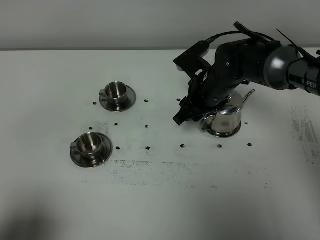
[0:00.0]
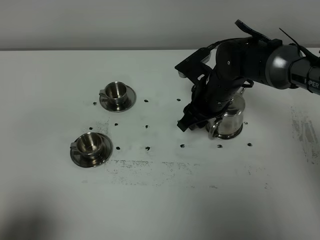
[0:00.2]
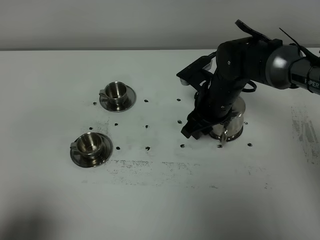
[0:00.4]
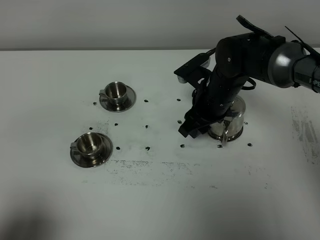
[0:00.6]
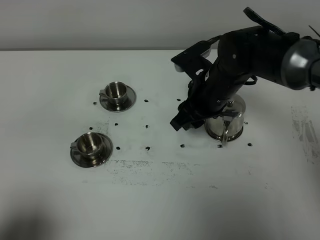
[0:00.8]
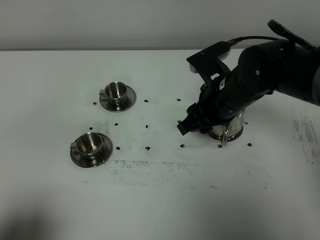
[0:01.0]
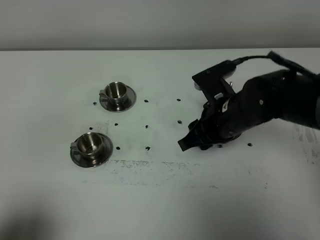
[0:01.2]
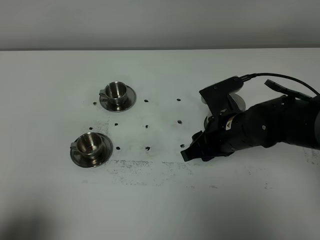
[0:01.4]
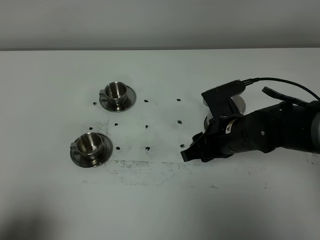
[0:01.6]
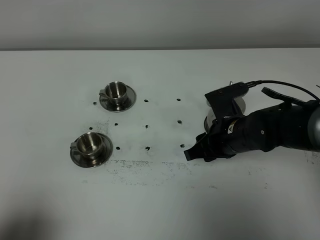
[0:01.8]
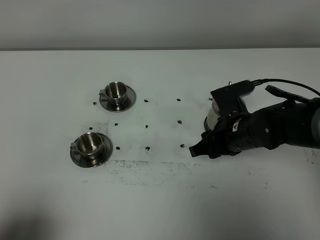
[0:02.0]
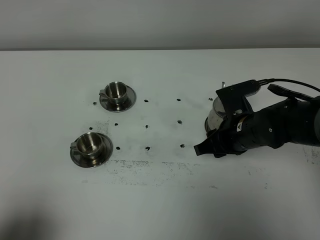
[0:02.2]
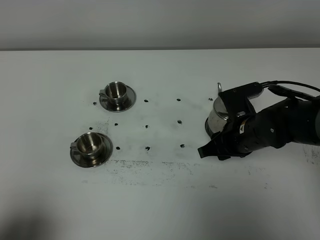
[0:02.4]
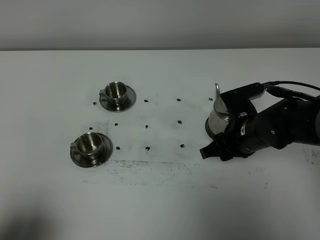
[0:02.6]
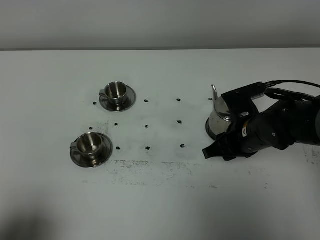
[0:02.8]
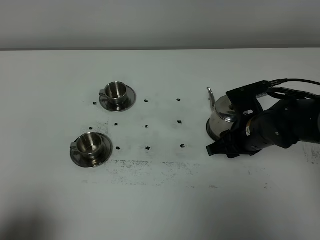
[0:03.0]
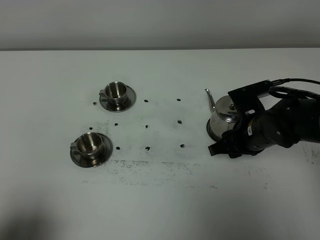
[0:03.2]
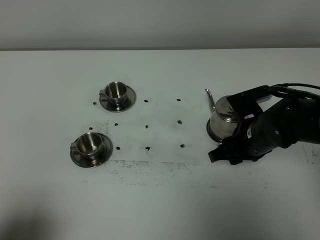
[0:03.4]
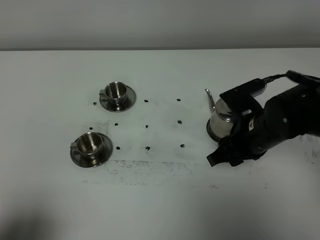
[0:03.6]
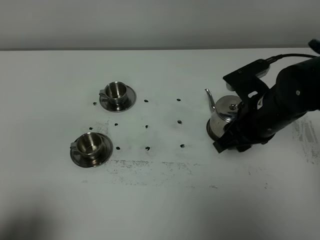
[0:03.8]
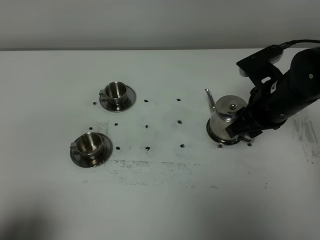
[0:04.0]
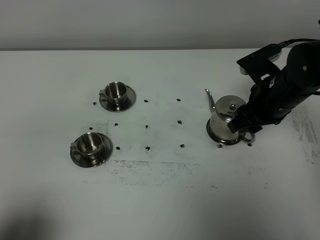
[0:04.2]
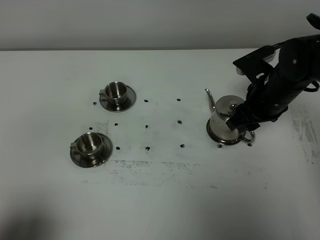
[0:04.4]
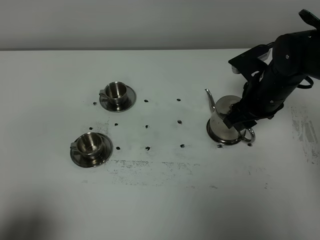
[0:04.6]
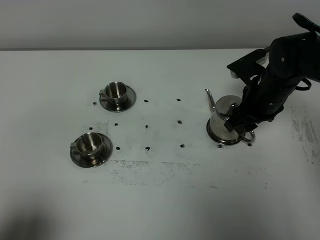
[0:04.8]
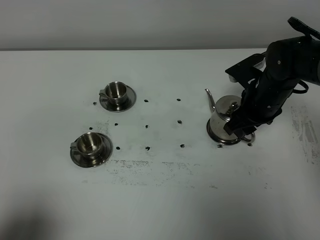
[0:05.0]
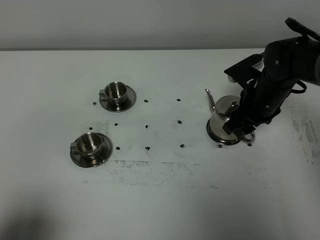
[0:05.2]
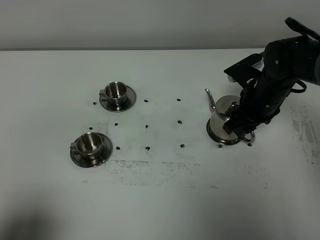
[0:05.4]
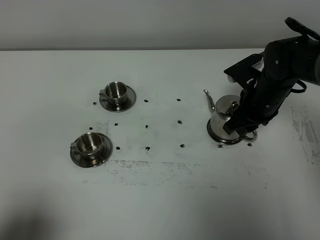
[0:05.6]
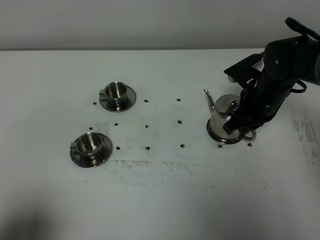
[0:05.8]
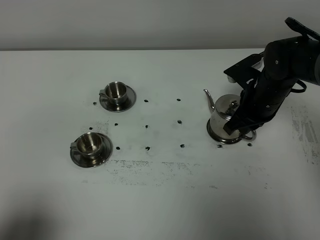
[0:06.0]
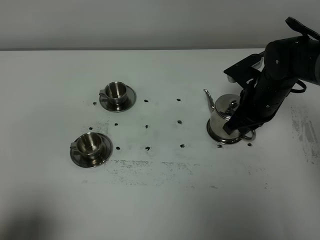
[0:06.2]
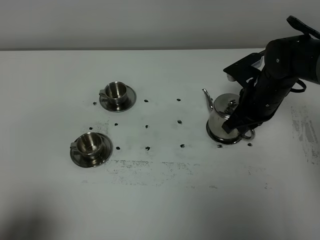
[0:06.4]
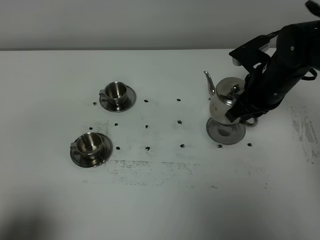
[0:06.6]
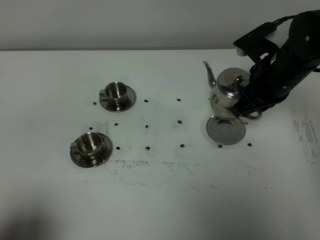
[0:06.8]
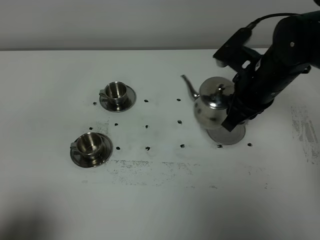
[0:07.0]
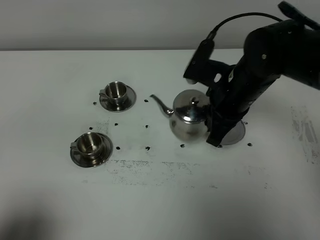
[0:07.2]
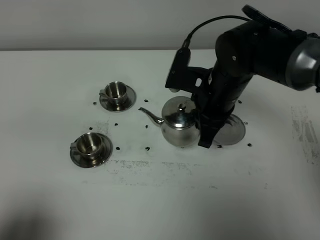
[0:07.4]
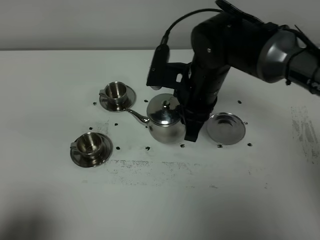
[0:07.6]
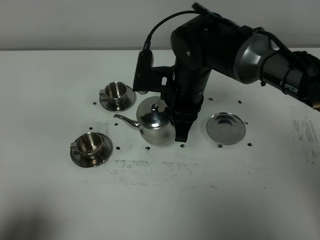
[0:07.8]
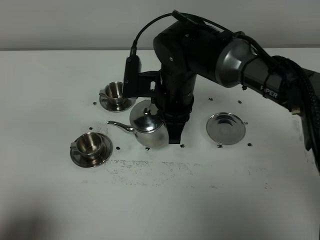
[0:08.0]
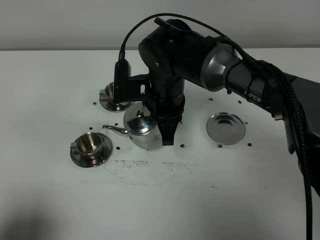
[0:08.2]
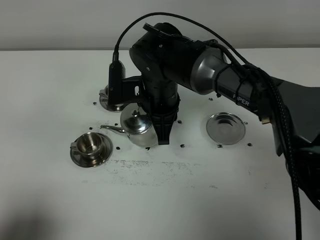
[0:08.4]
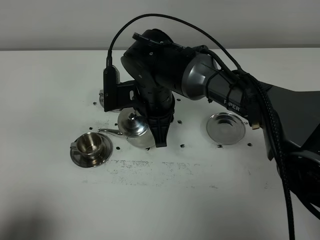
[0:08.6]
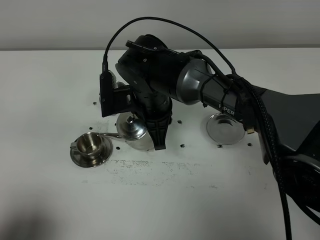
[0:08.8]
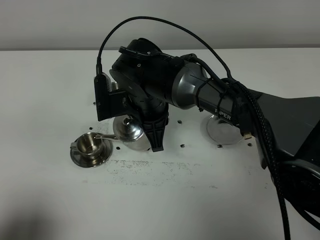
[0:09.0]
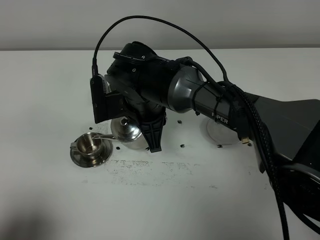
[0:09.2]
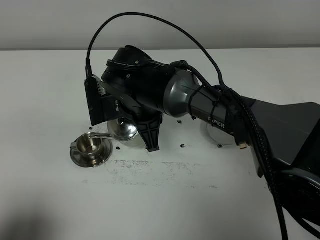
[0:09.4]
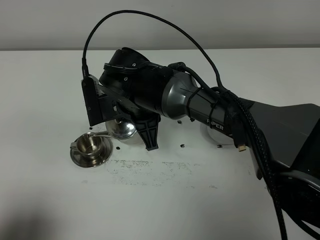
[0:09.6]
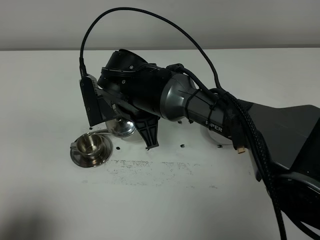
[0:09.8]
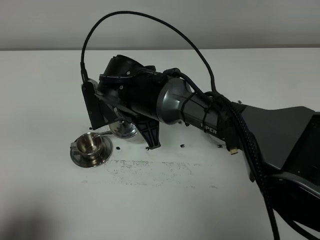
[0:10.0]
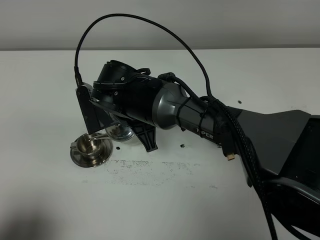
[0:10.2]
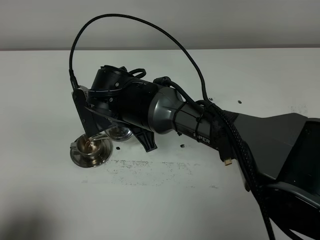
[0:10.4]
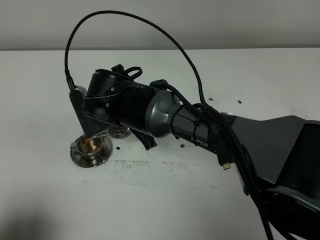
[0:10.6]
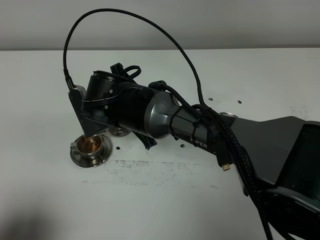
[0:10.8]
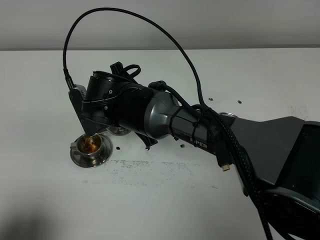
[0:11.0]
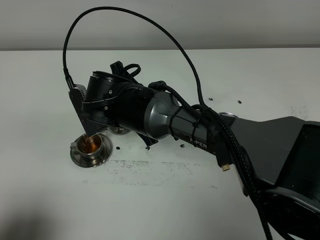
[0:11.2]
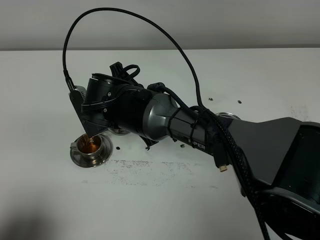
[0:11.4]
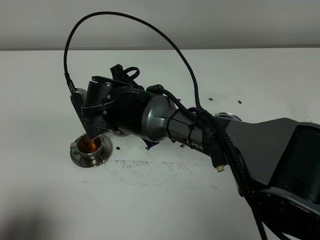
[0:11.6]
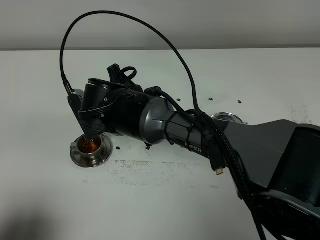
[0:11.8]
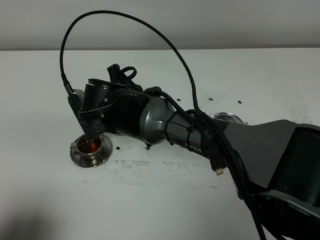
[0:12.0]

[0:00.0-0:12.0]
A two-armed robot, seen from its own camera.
Task of the whole recording: grasp the stainless steel teapot and pour the tea into the two stainless steel teacups one by one, put the stainless steel teapot back in its original place.
Step, 0:00.0 to 0:06.4: Pick up the teapot with the right gripper.
0:00.0 to 0:01.6: The right gripper is displaced backward by some 10 cm.
0:01.6 to 0:03.0: The grippers stay close to where they were, moving slightly.
0:03.0 to 0:04.4: The right gripper heads upward, covering roughly 5 cm.
0:04.4 to 0:06.0: The right gripper closes.
0:06.0 to 0:07.6: The right gripper shifts roughly 15 cm to the left and upward.
0:07.6 to 0:09.0: The right gripper moves to the left, about 10 cm.
0:10.4 to 0:12.0: The grippers stay close to where they were, moving slightly.

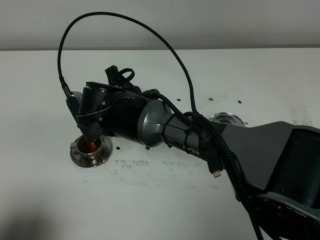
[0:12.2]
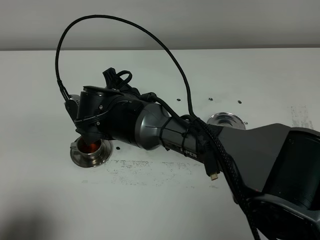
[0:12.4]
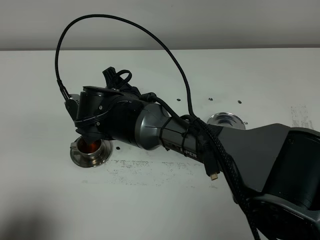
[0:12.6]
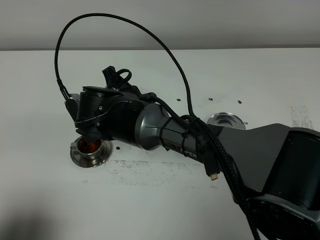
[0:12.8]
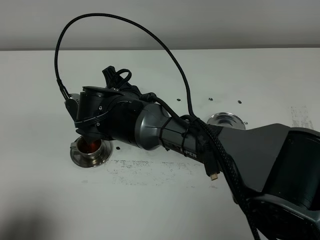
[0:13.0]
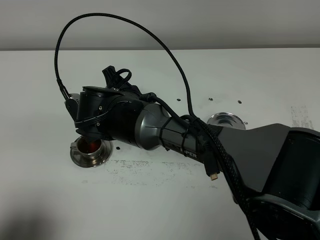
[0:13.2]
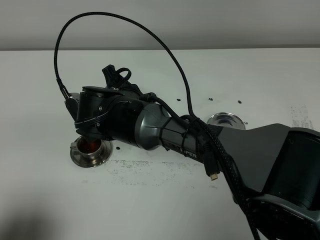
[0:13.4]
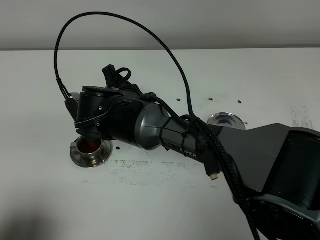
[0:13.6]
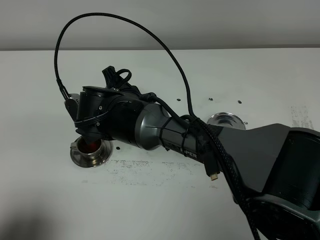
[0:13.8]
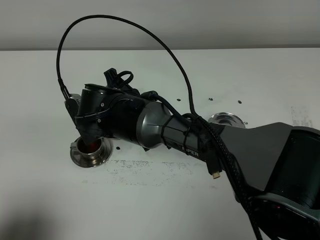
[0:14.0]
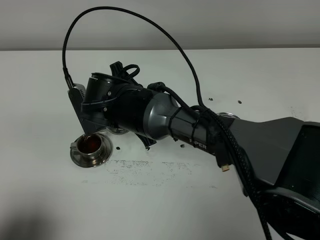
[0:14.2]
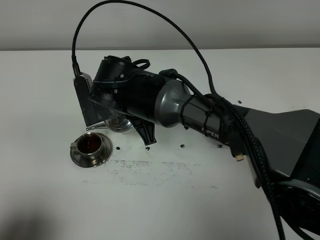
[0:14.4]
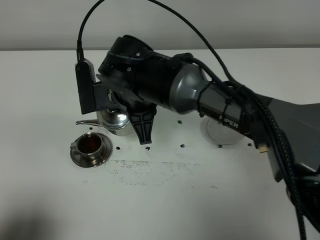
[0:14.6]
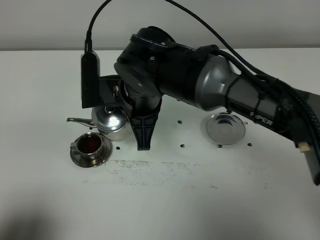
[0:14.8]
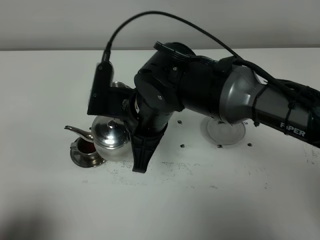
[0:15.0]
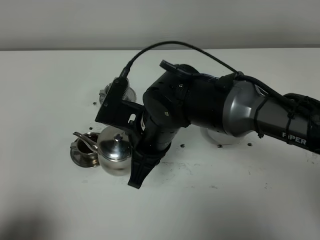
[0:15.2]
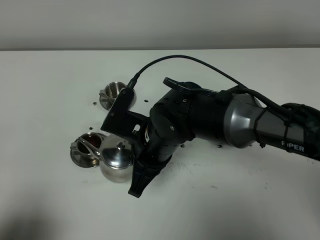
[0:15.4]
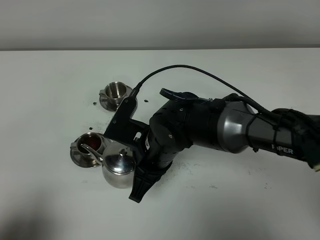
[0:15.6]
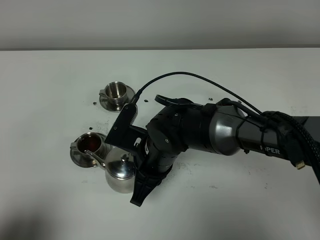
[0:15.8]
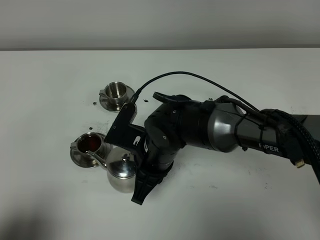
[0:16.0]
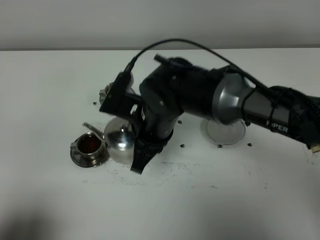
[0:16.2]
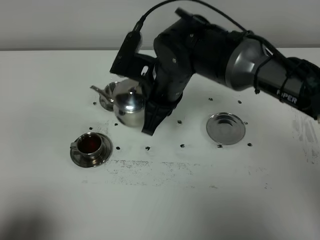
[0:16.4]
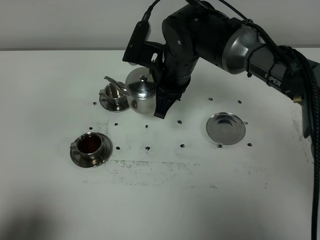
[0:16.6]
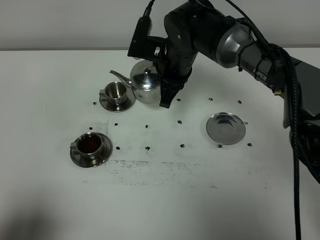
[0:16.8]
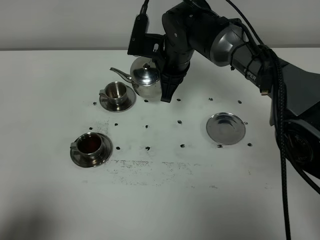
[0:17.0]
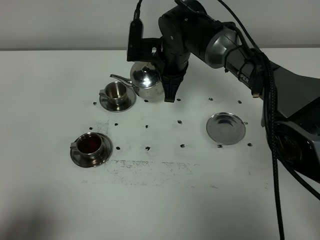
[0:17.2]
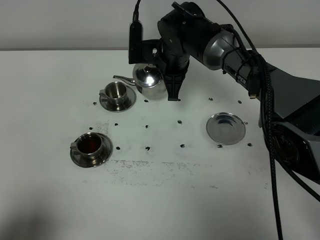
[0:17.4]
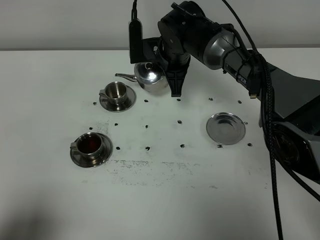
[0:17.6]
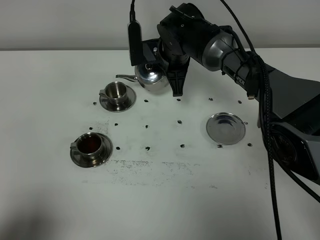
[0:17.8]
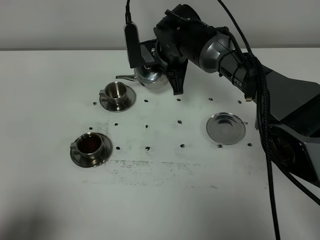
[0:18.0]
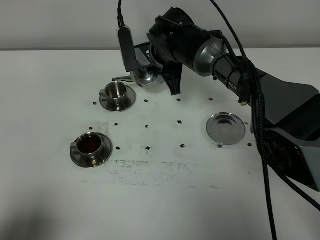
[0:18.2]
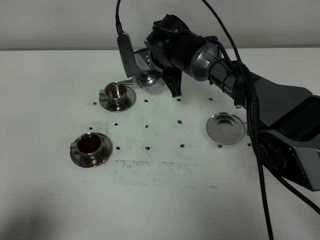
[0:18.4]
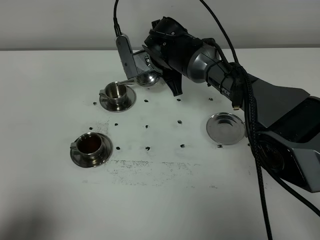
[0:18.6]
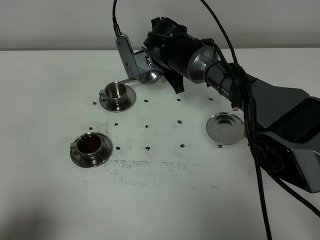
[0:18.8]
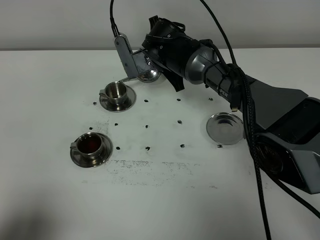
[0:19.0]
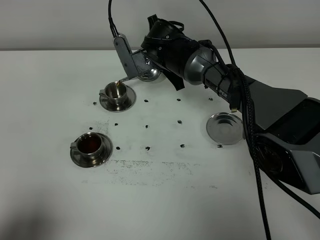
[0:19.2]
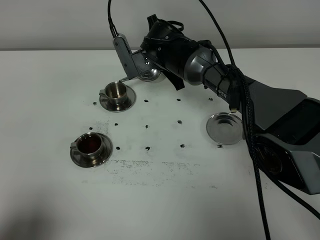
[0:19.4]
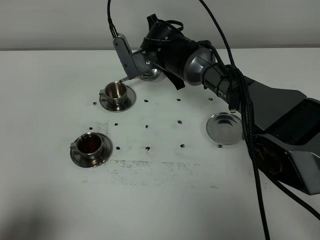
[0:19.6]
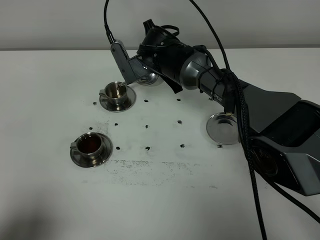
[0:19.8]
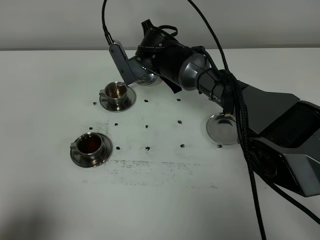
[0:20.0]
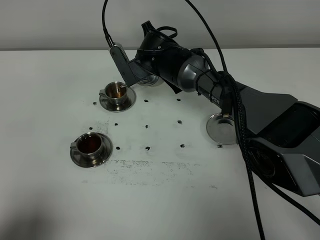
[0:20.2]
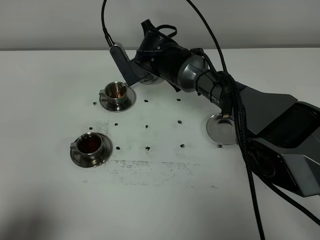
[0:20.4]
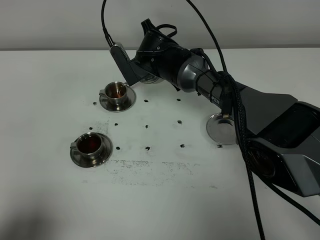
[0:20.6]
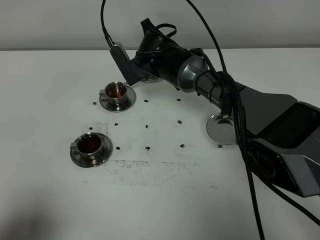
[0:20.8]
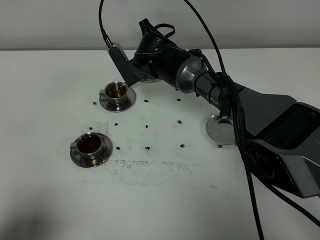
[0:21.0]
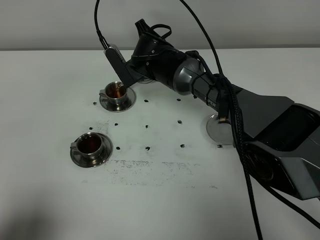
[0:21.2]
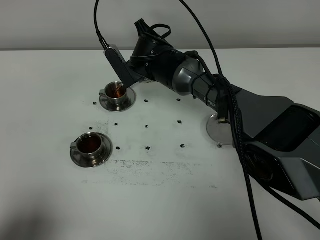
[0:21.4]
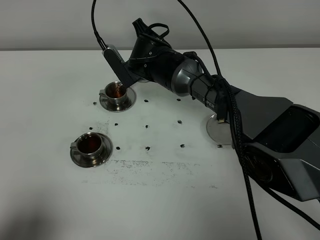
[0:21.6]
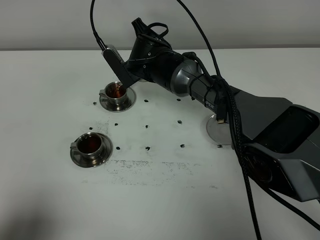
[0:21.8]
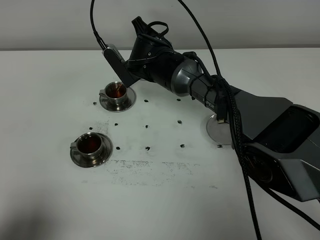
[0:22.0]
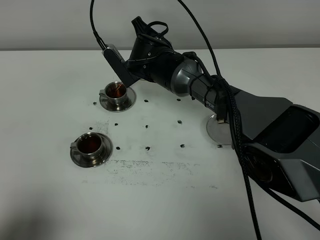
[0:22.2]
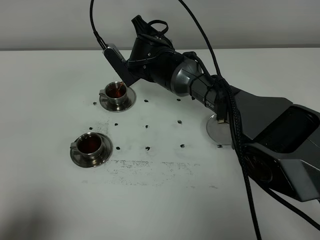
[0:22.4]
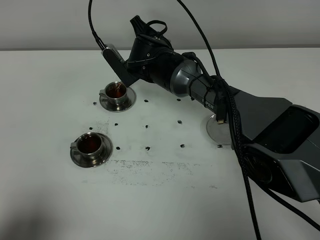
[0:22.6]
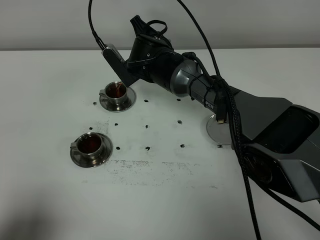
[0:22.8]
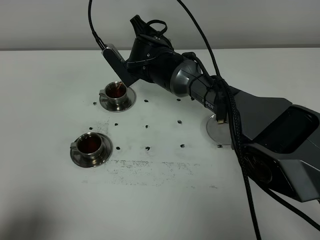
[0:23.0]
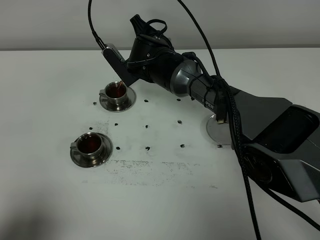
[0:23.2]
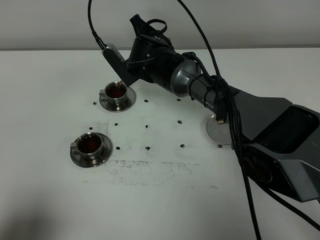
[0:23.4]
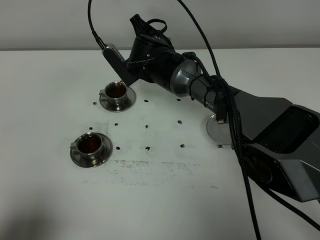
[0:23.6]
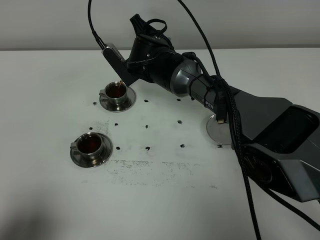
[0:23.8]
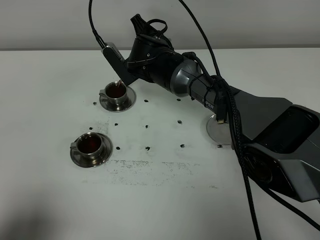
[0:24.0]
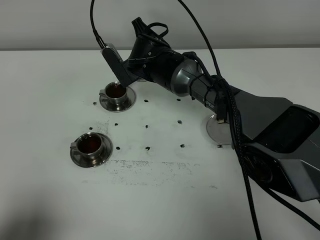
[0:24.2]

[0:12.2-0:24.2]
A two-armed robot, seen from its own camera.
Task of the whole recording: grasp the stainless steel teapot and pour the tea into the two stainless steel teacups one by one, put the stainless steel teapot back in its original place.
0:12.2 to 0:13.8: Neither gripper changes place.
0:13.8 to 0:15.2: The right gripper heads to the right and backward, covering about 10 cm.
0:15.2 to 0:16.6: The right gripper travels forward by some 10 cm.
0:16.6 to 0:18.2: The right gripper goes some 5 cm forward.
0:18.2 to 0:19.8: The grippers move only a little.
0:19.8 to 0:24.2: The grippers make only small movements.
